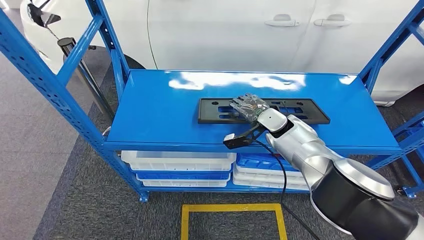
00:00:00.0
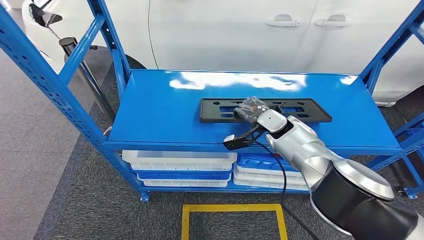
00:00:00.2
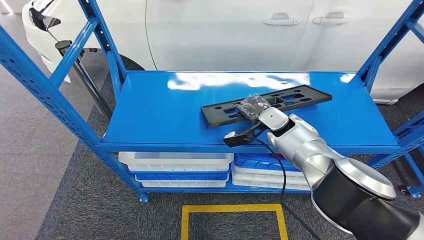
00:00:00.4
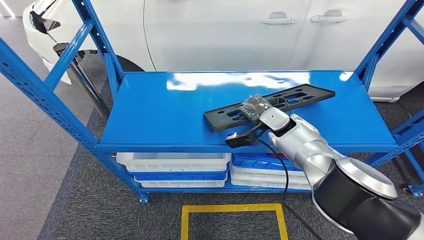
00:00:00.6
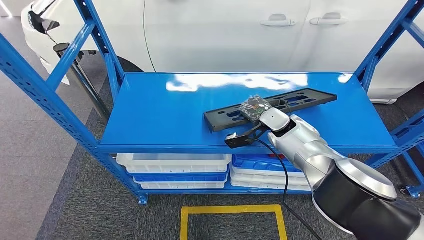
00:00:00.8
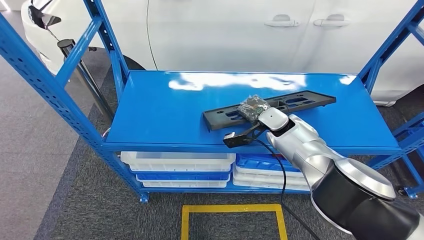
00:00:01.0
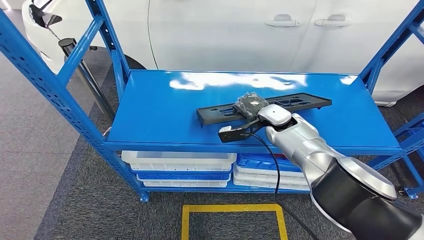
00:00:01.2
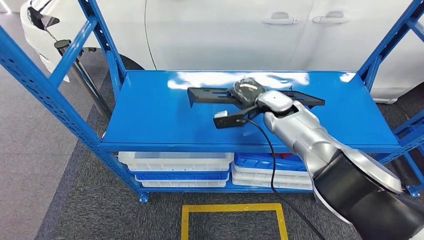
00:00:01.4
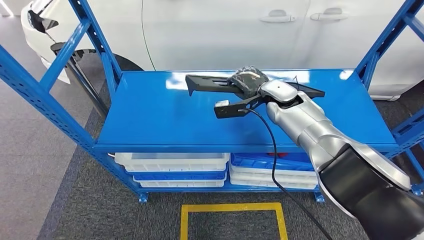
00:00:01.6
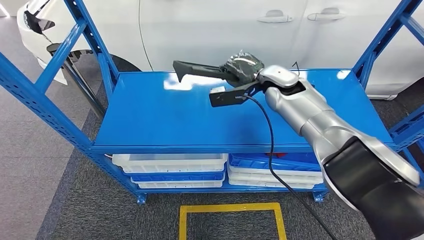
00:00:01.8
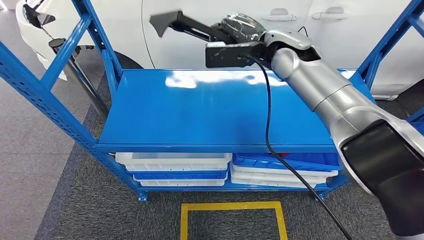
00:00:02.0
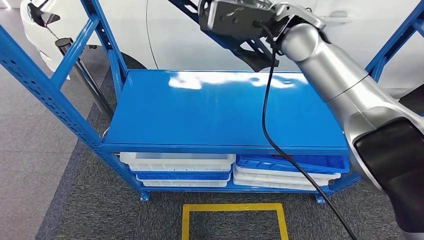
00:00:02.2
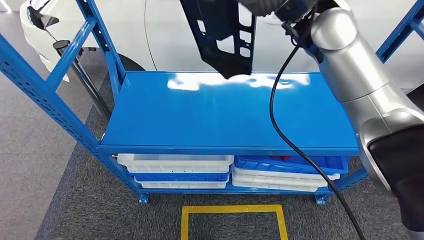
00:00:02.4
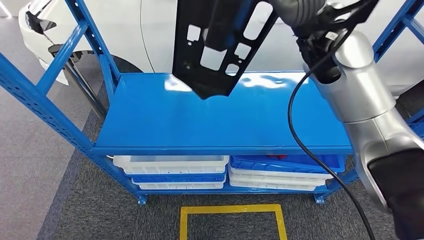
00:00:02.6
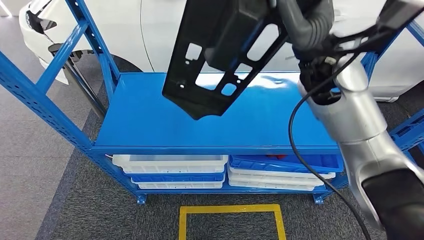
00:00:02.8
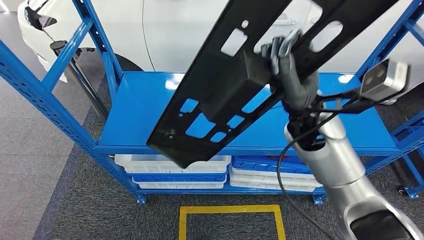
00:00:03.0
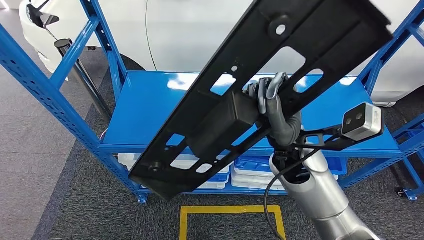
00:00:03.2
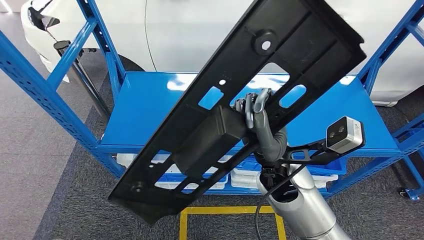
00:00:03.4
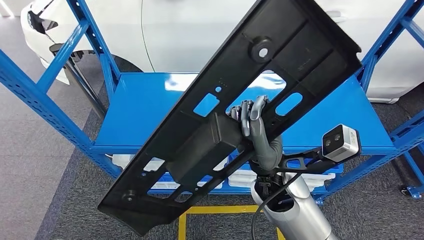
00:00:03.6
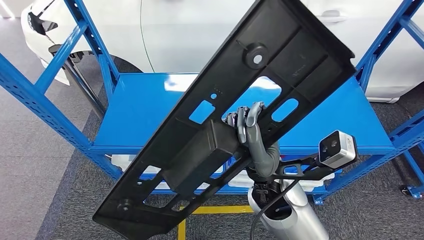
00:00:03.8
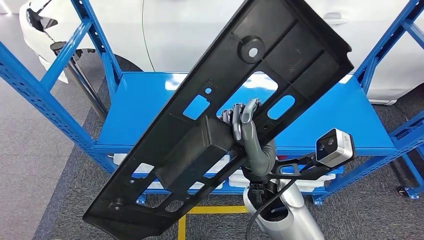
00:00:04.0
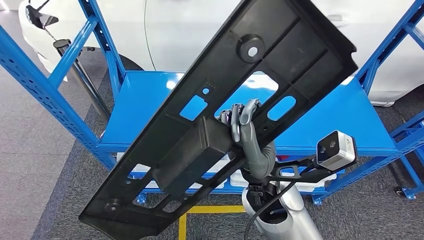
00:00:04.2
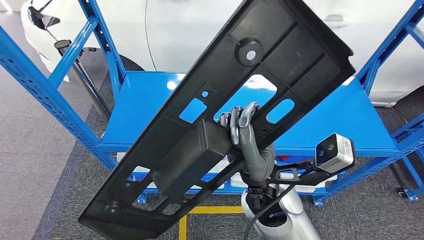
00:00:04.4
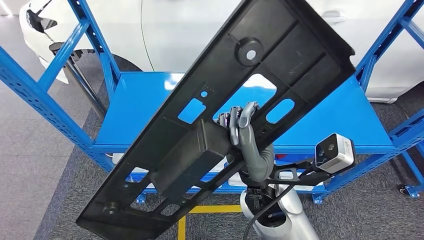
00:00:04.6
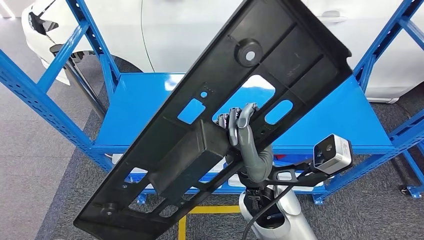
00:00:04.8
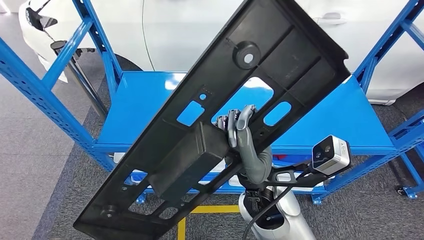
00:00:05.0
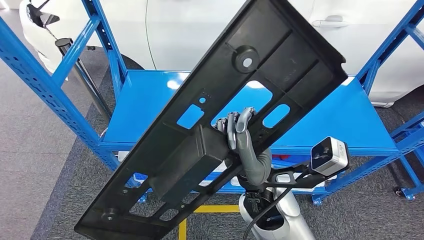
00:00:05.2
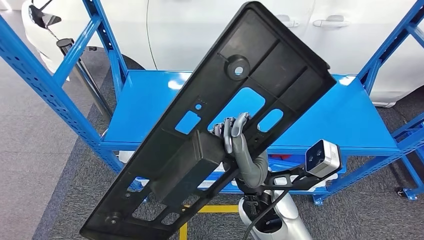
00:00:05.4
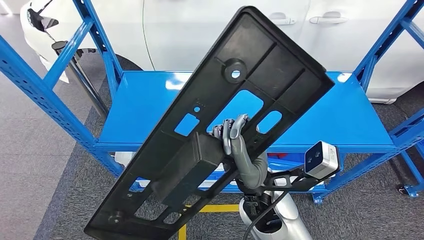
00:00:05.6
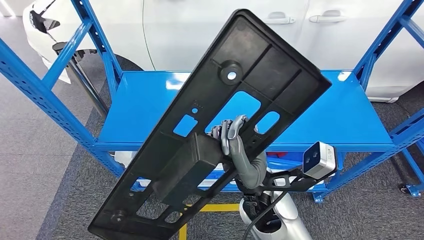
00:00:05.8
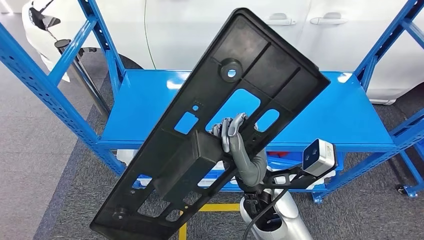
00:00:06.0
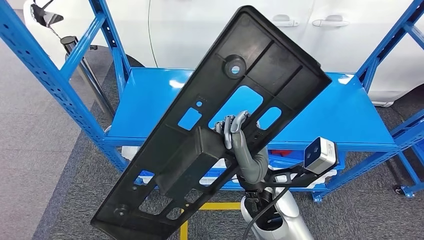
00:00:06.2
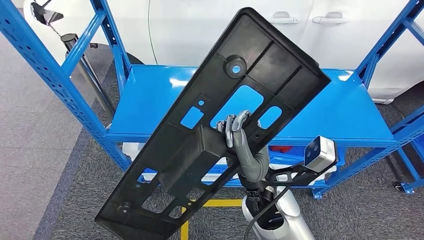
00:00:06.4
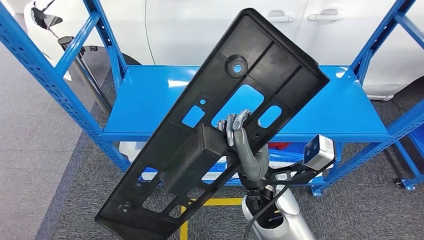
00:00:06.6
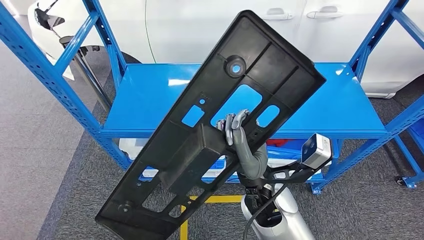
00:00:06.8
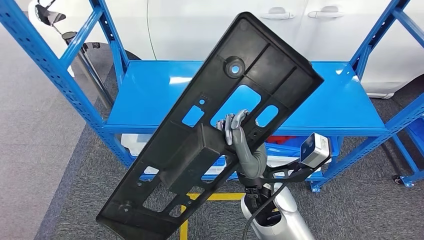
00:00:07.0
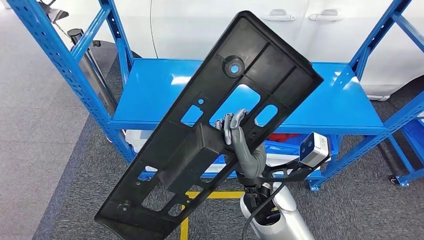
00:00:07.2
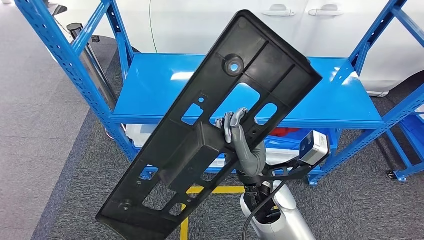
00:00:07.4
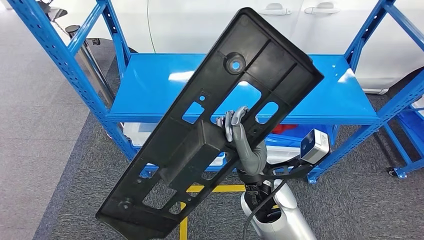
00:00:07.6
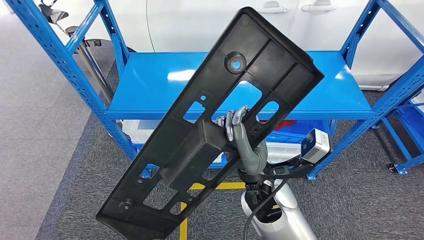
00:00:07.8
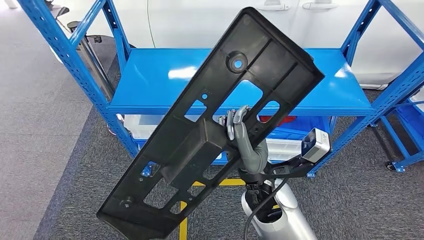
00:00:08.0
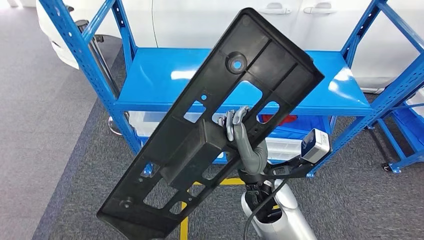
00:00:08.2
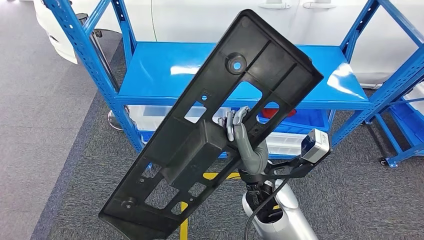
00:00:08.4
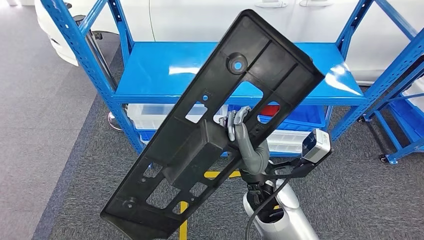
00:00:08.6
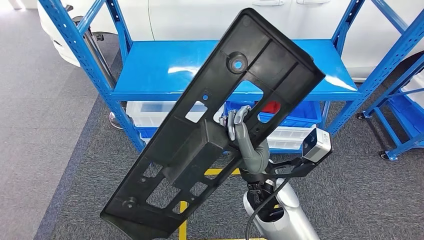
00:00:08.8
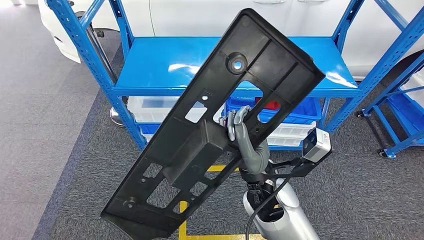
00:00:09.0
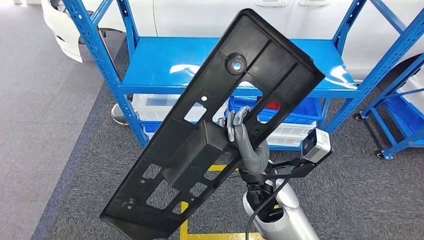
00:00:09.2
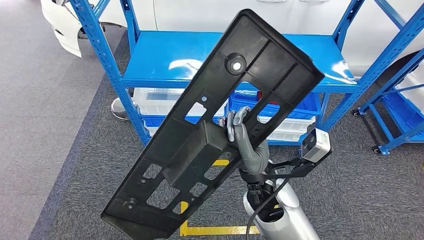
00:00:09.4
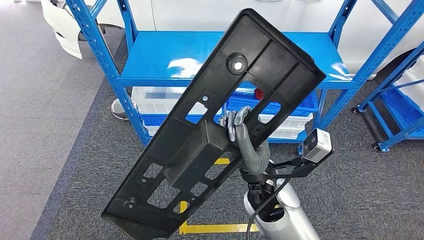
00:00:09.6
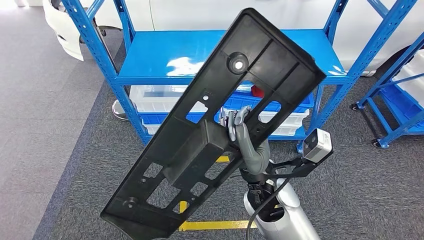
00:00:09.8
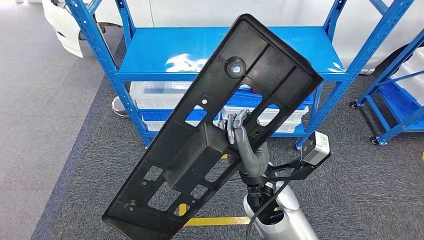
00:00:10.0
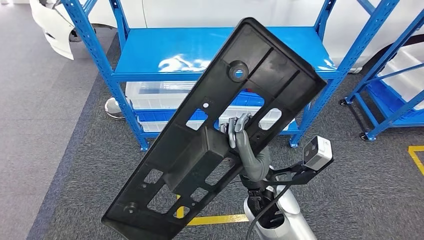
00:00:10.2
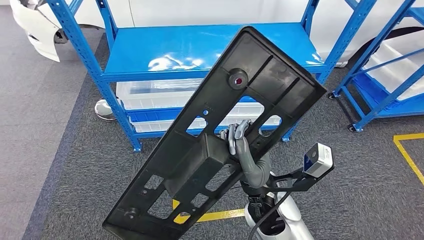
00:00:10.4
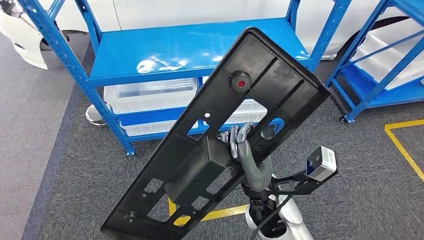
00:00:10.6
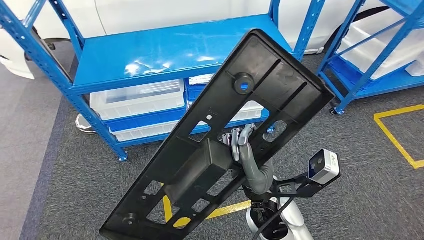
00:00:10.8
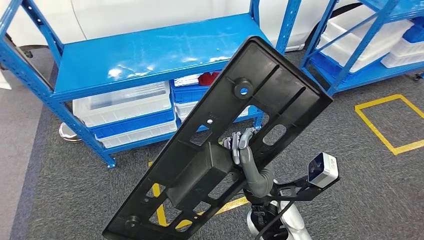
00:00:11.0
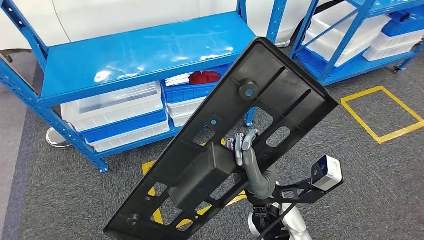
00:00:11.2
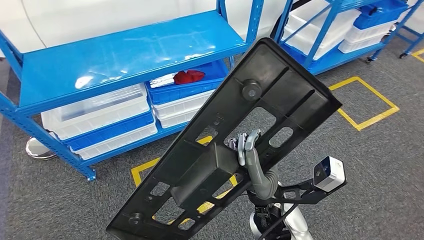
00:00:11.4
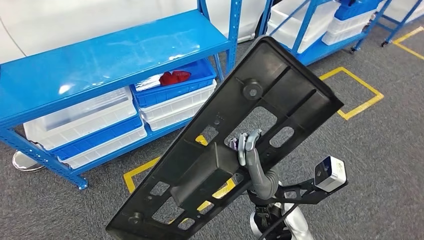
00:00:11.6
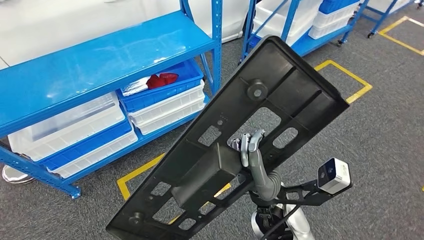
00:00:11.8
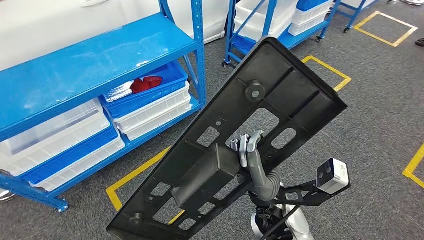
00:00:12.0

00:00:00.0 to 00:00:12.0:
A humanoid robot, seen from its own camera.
Step, 00:00:00.0 to 00:00:03.0: Pick up the large material from the shelf.

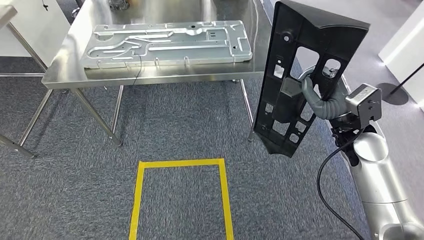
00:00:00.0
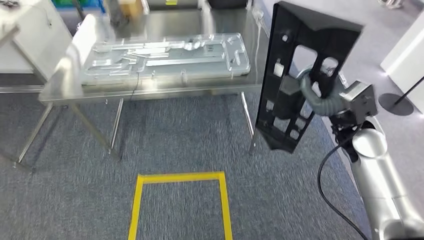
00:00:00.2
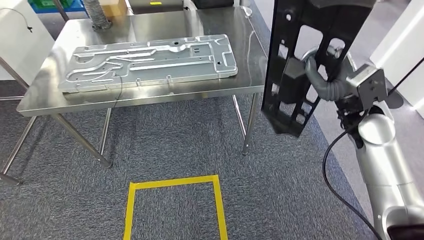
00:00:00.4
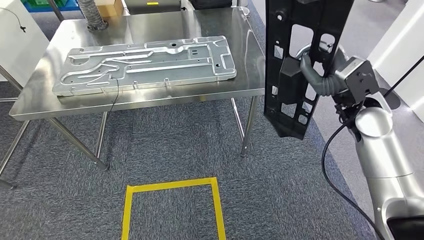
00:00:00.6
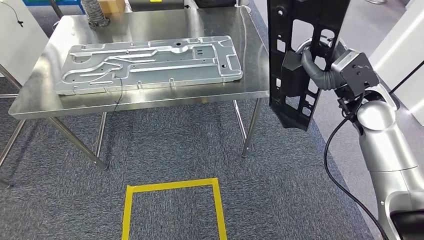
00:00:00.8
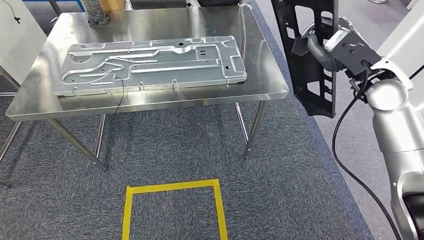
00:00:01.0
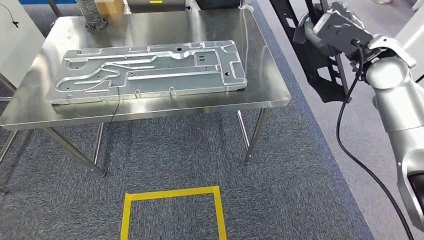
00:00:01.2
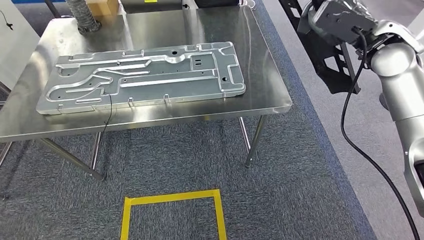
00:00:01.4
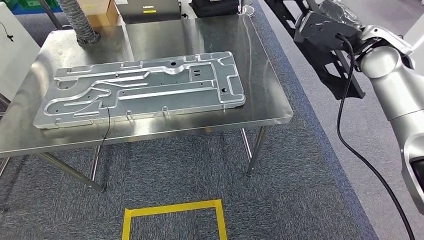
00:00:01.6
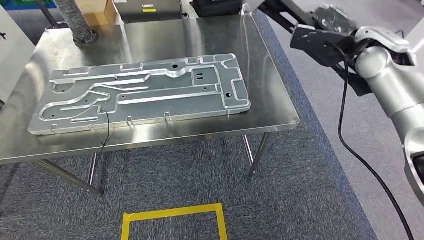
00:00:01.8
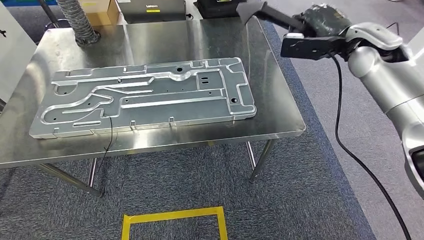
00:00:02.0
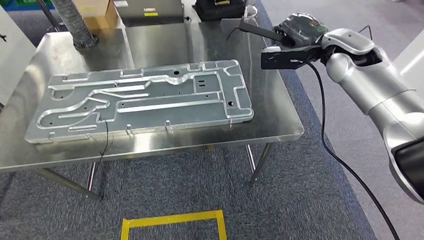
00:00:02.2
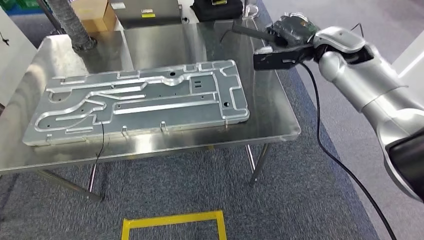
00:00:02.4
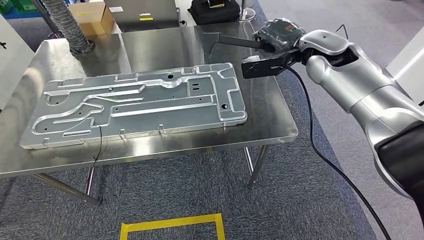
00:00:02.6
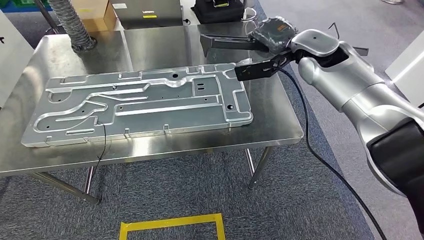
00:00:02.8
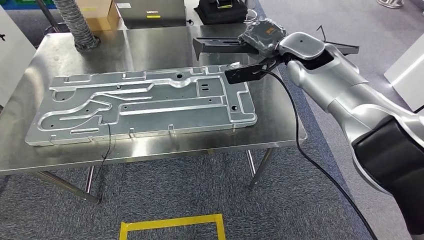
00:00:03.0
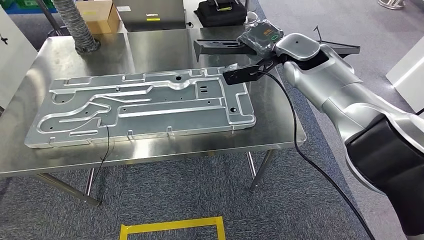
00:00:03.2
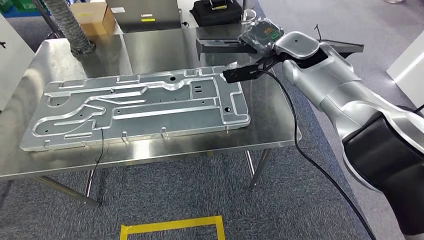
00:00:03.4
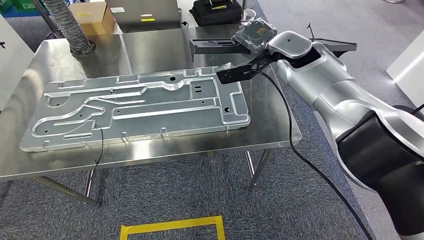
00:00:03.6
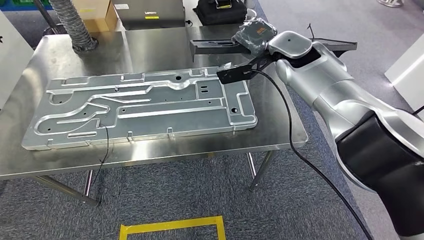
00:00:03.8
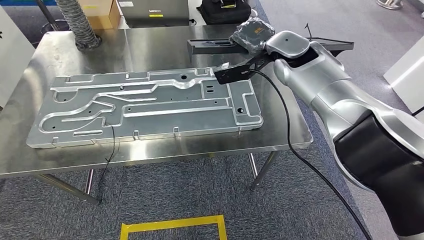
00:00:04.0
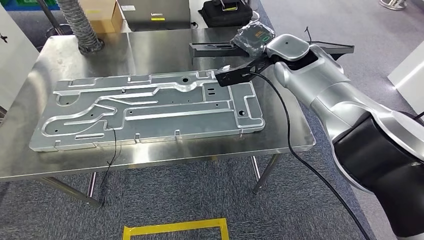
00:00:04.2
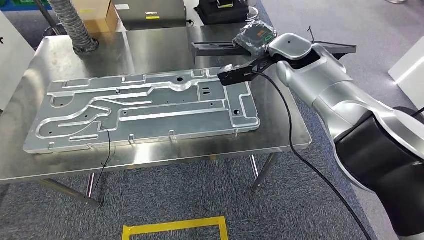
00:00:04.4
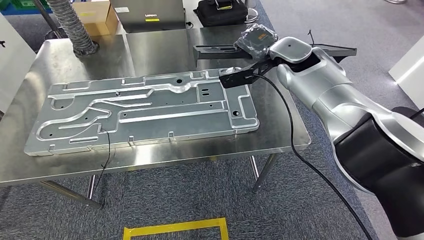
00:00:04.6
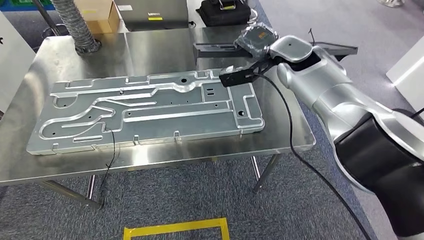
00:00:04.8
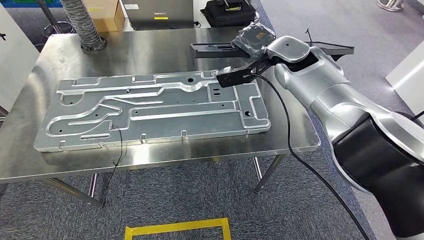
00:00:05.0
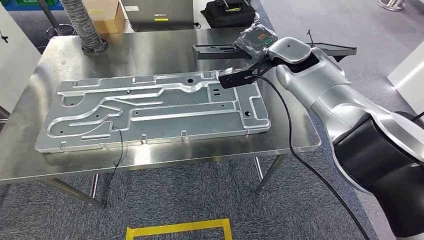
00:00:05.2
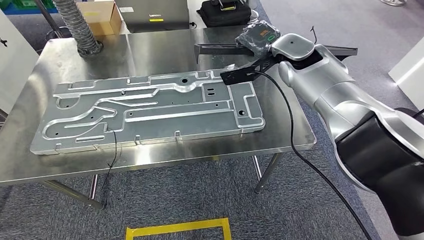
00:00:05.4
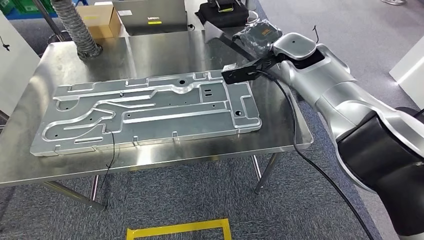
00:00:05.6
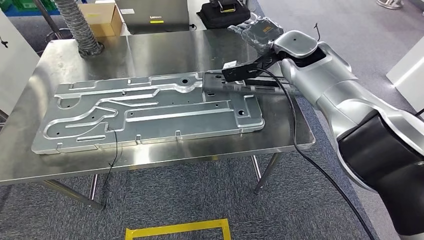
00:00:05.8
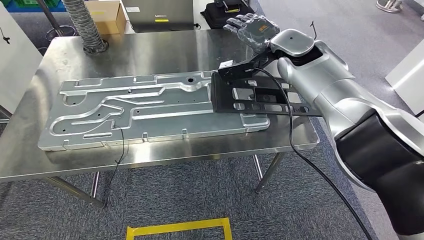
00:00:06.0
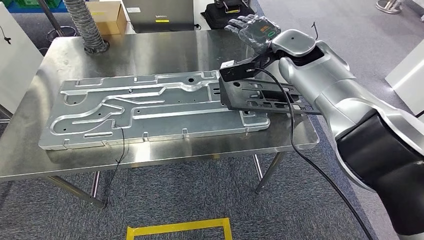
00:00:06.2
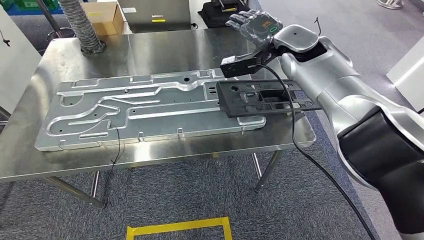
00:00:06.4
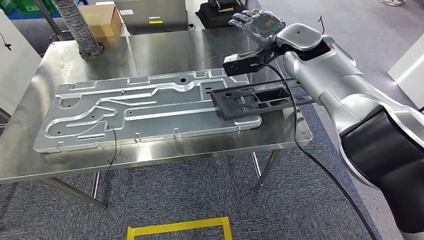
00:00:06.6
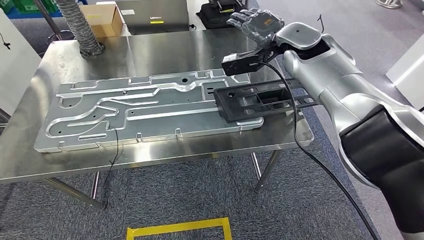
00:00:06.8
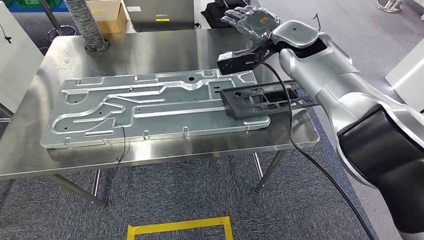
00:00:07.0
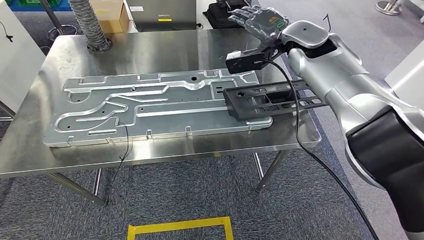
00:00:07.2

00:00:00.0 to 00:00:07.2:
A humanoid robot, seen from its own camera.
Step, 00:00:00.0 to 00:00:05.0: Move the large material to the workbench.
